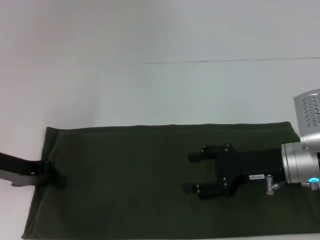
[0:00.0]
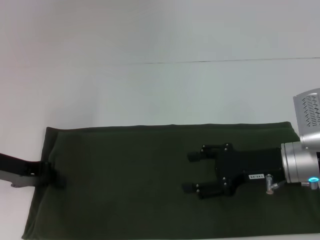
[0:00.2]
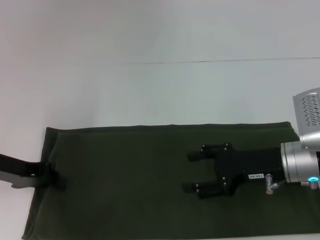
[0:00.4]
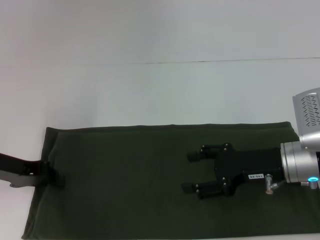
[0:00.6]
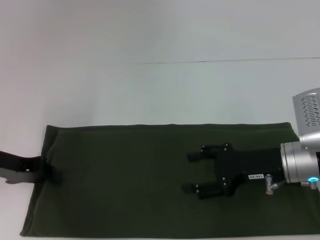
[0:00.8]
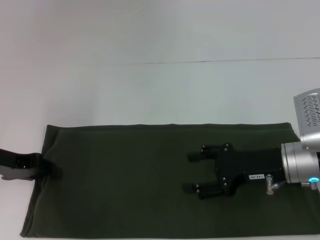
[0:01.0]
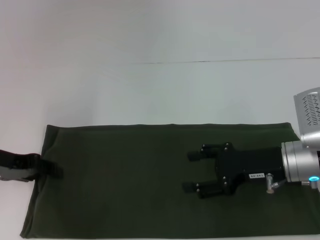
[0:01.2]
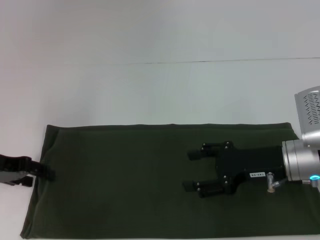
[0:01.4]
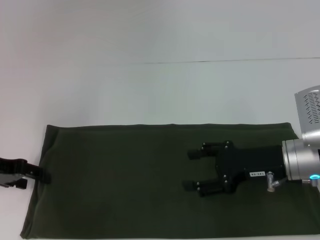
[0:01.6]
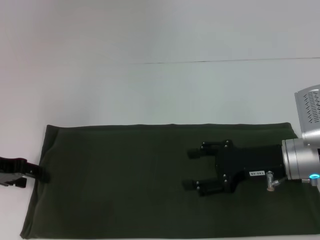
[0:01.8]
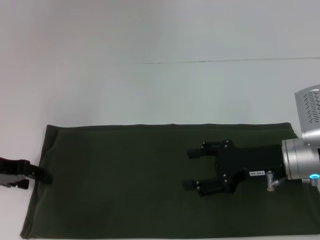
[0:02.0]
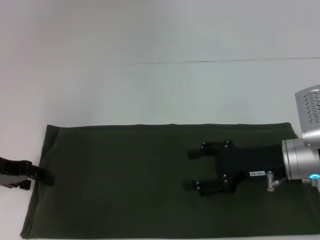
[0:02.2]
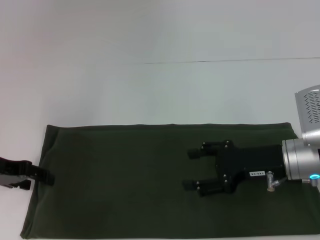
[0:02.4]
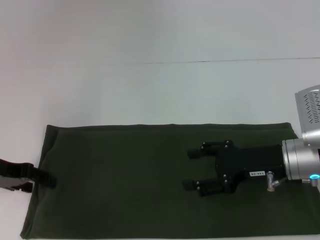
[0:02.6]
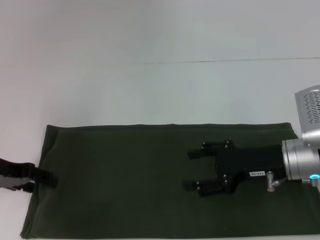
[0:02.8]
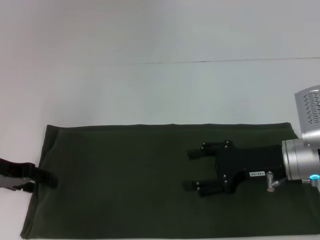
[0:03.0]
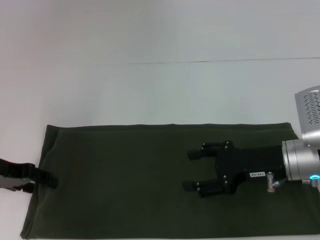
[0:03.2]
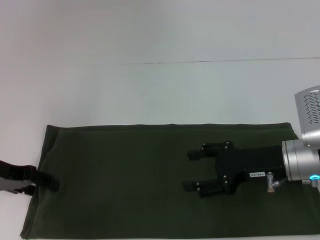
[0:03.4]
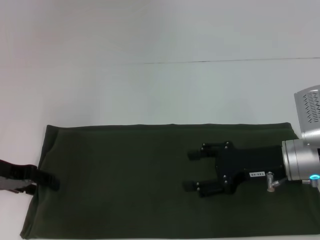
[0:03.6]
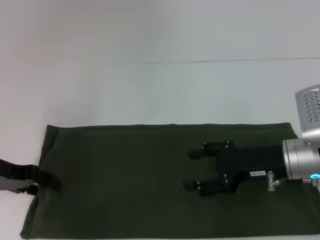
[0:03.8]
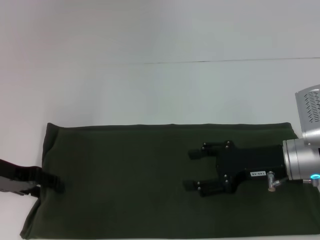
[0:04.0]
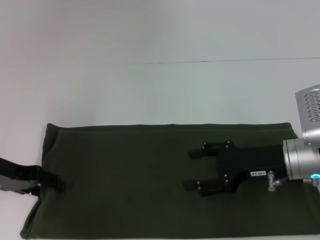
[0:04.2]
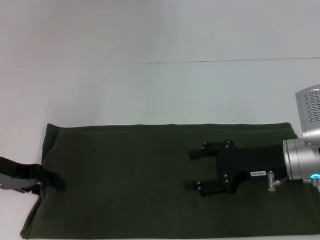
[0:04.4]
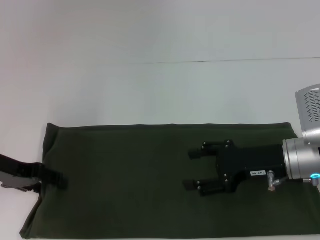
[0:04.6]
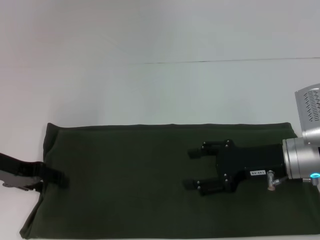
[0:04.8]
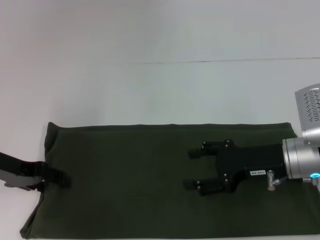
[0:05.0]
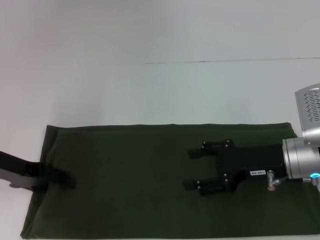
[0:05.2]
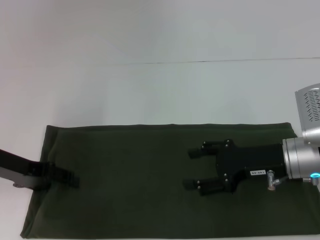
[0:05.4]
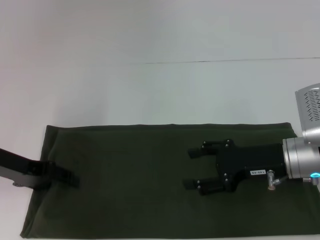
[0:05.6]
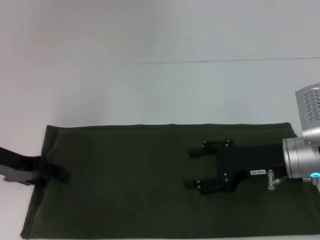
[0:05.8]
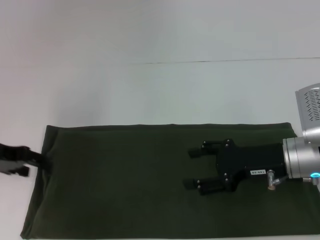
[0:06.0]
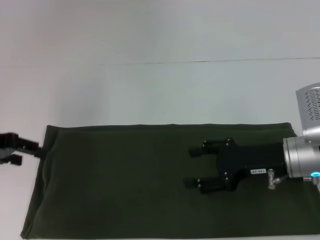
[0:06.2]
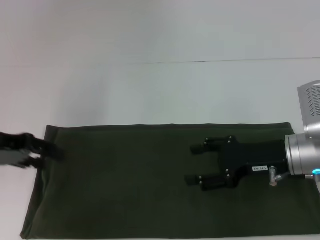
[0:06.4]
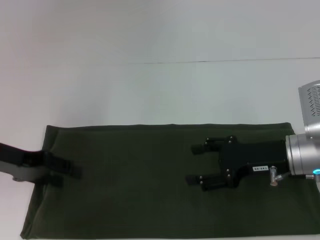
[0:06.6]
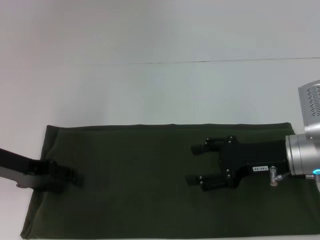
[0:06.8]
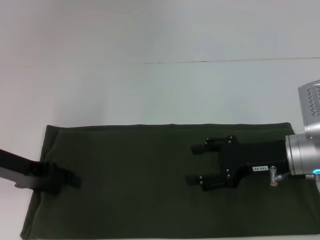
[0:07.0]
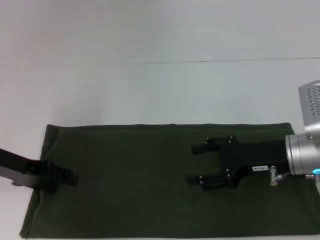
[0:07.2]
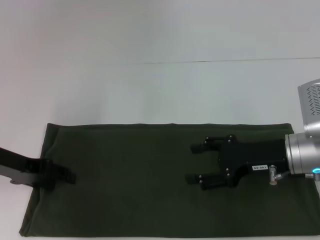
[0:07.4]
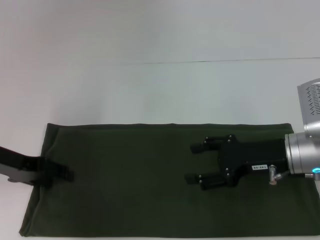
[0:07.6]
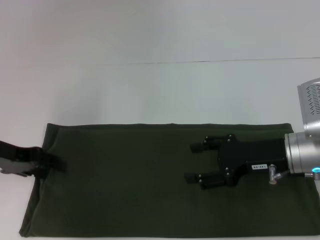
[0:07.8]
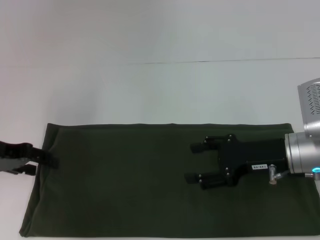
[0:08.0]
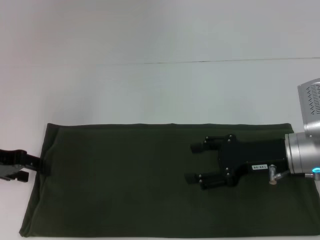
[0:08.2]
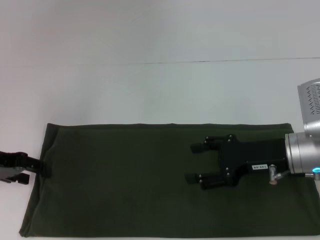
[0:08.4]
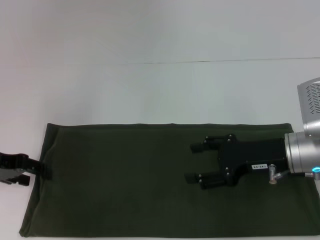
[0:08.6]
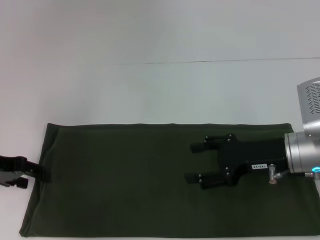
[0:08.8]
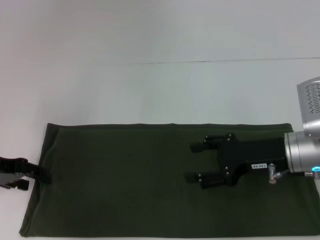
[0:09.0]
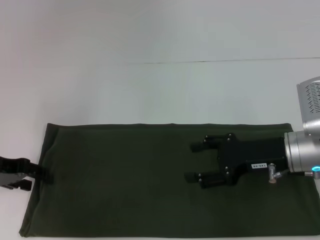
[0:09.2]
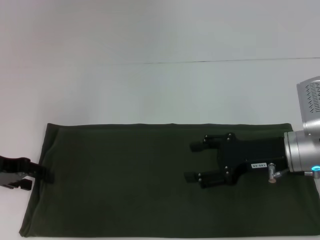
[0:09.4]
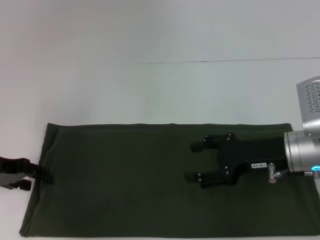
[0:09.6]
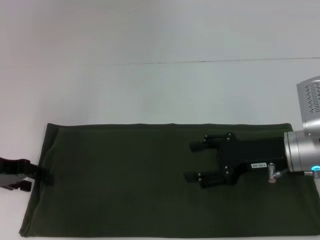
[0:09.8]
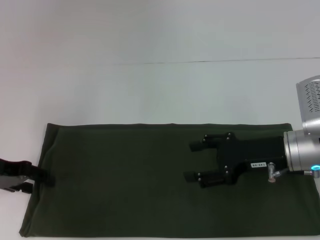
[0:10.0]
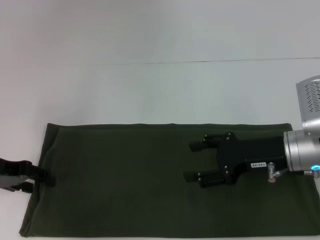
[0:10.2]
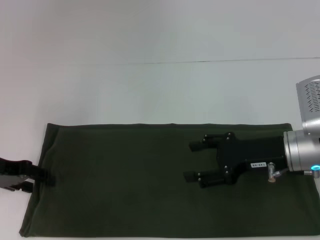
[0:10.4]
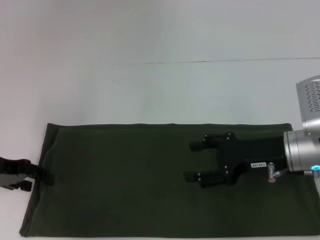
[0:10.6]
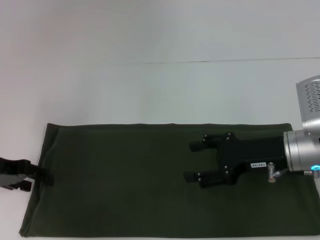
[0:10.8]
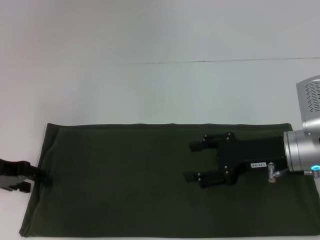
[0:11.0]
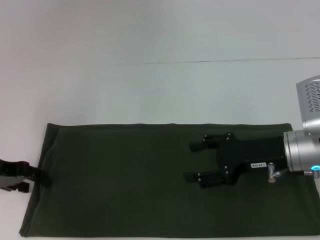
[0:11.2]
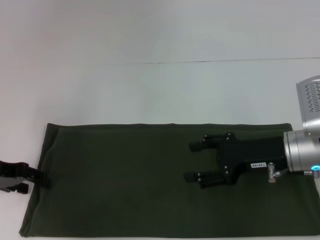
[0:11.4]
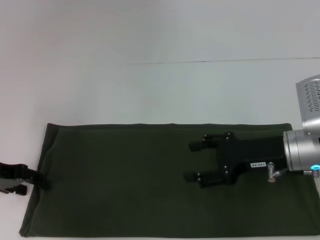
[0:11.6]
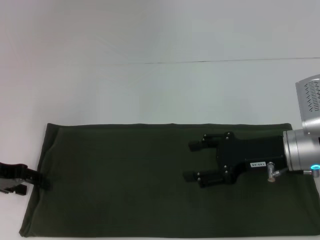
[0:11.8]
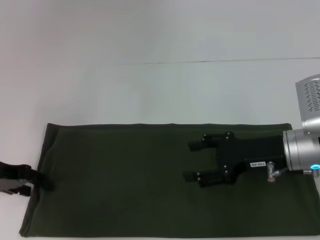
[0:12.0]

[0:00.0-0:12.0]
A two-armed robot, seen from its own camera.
0:00.0 to 0:01.6: The left gripper opens.
0:01.6 to 0:03.0: The two grippers keep their place.
0:03.0 to 0:04.4: Both grippers stay put.
0:04.4 to 0:09.0: The grippers move only a little.
0:09.0 to 0:12.0: Both grippers stay about where they are.

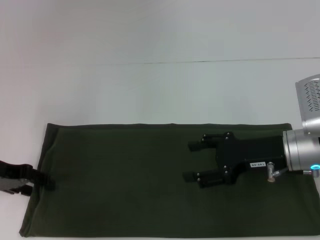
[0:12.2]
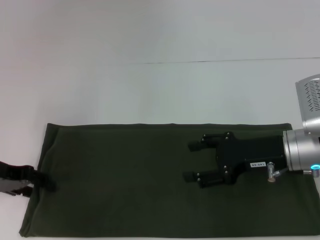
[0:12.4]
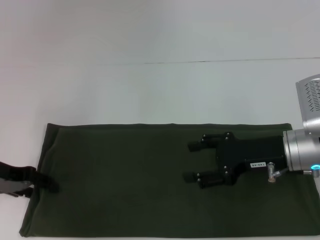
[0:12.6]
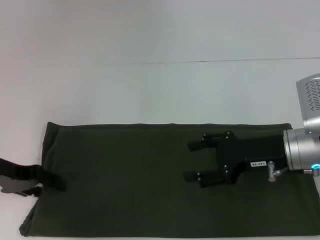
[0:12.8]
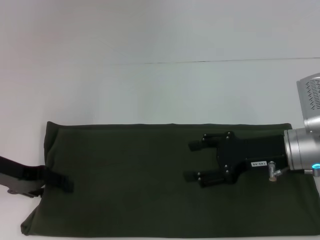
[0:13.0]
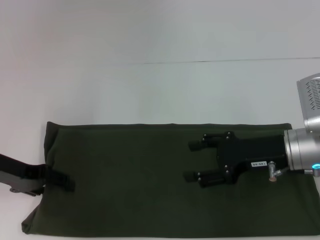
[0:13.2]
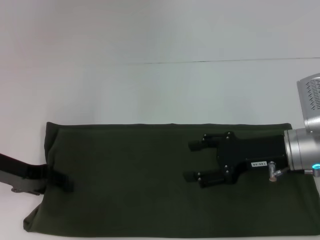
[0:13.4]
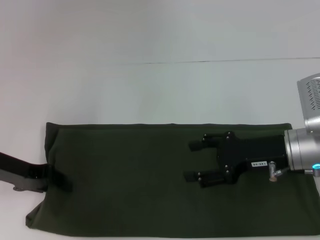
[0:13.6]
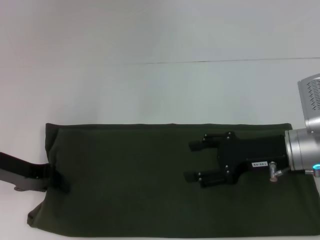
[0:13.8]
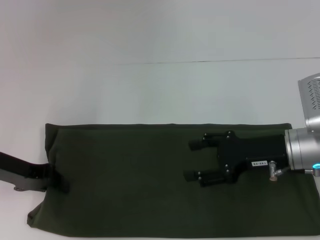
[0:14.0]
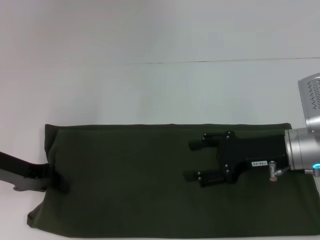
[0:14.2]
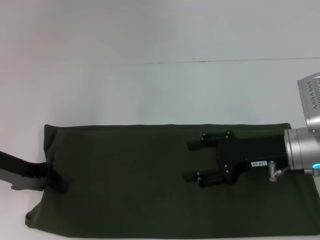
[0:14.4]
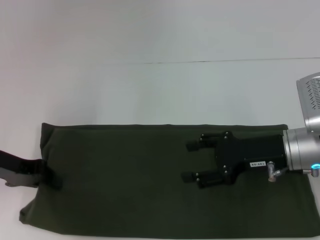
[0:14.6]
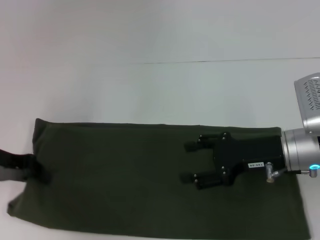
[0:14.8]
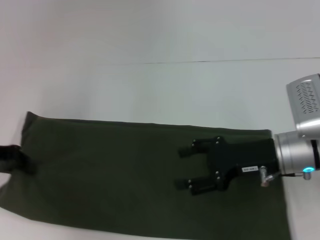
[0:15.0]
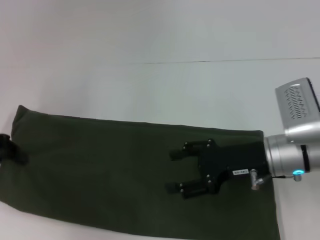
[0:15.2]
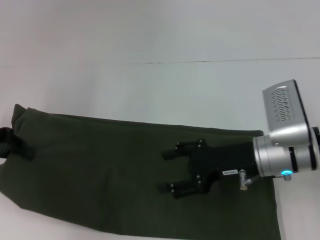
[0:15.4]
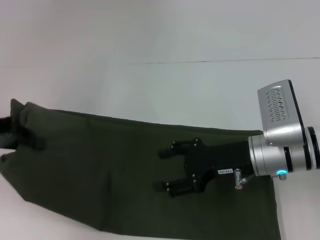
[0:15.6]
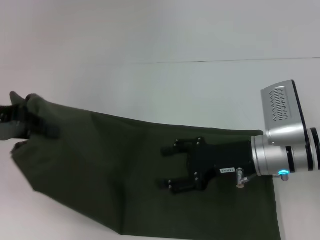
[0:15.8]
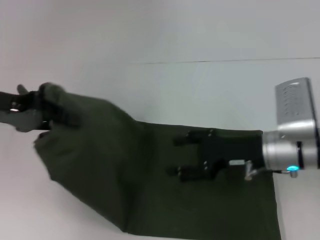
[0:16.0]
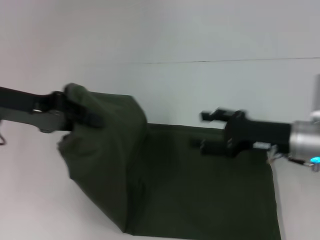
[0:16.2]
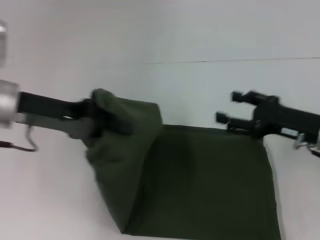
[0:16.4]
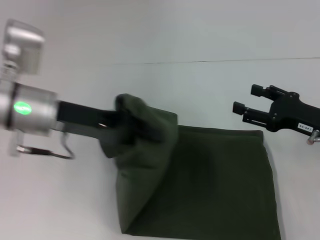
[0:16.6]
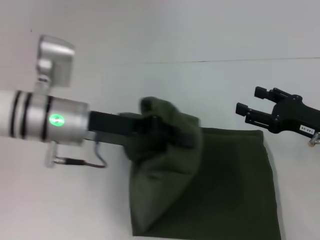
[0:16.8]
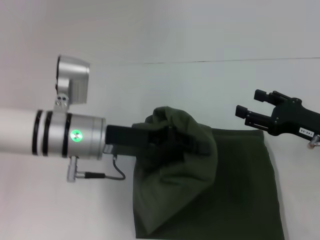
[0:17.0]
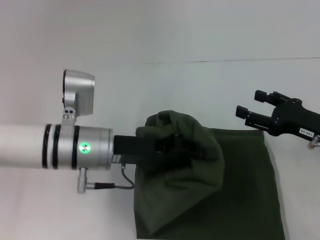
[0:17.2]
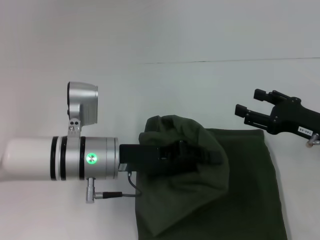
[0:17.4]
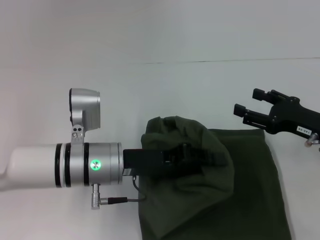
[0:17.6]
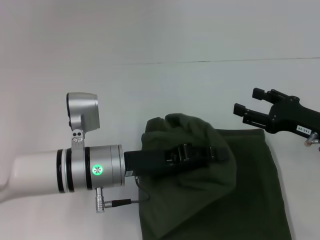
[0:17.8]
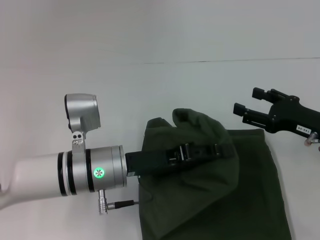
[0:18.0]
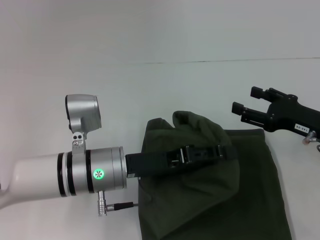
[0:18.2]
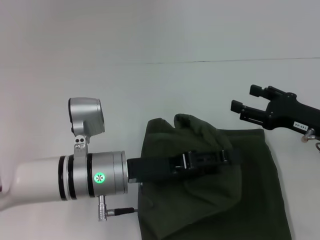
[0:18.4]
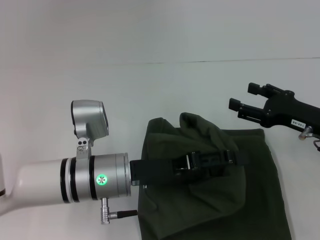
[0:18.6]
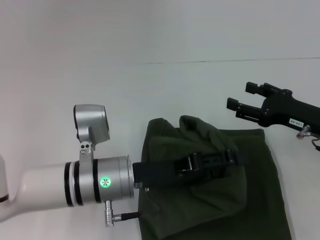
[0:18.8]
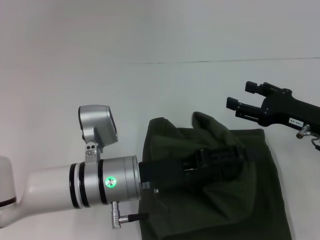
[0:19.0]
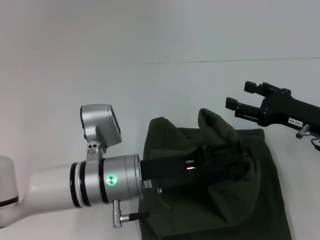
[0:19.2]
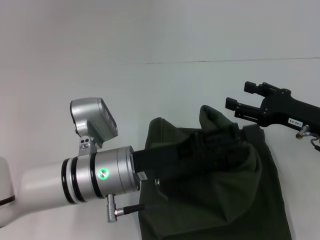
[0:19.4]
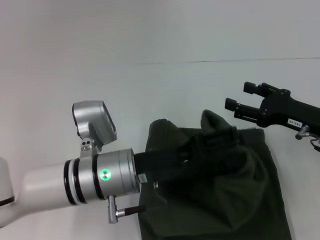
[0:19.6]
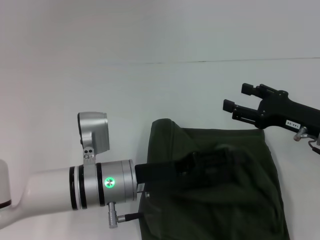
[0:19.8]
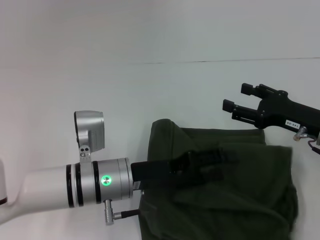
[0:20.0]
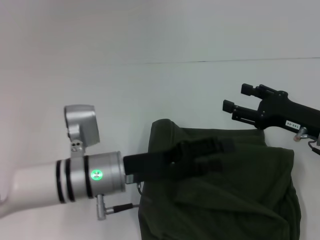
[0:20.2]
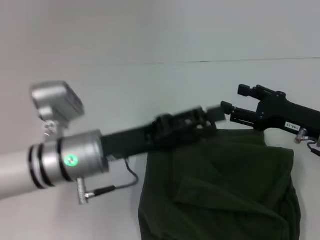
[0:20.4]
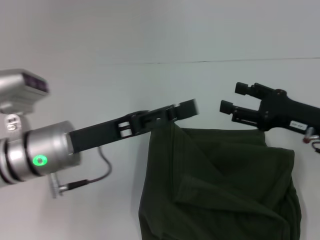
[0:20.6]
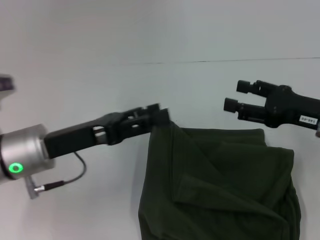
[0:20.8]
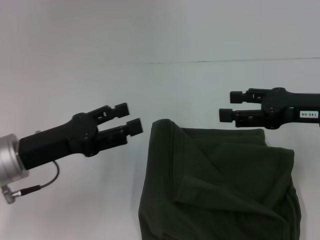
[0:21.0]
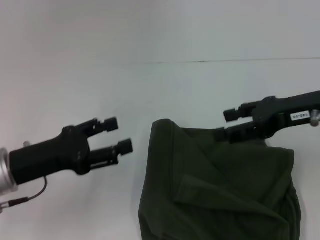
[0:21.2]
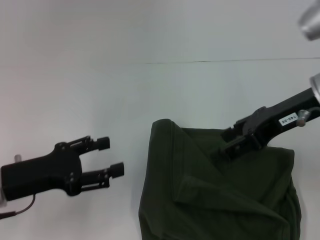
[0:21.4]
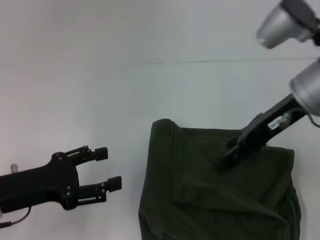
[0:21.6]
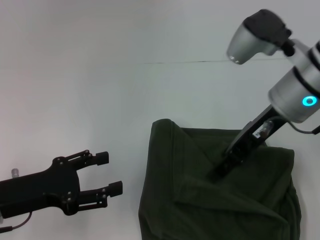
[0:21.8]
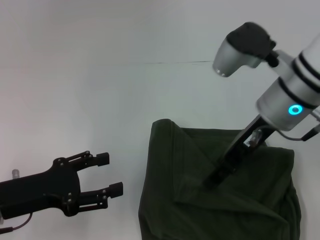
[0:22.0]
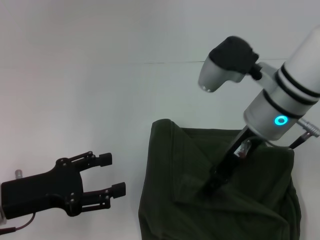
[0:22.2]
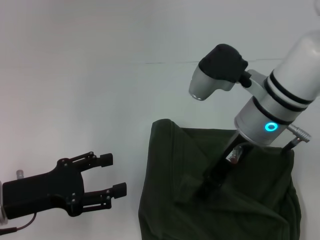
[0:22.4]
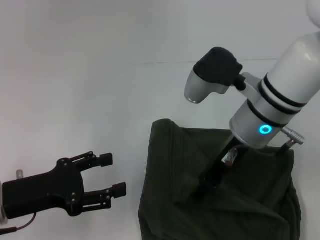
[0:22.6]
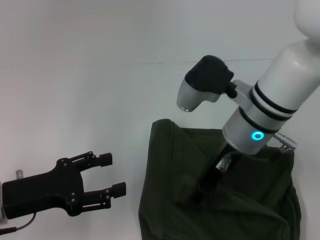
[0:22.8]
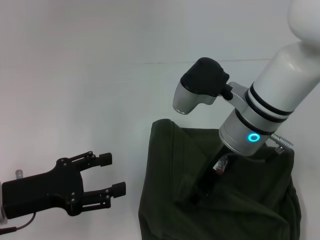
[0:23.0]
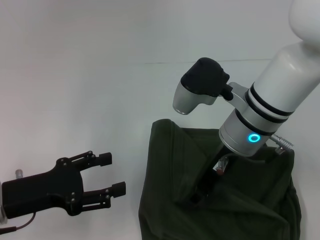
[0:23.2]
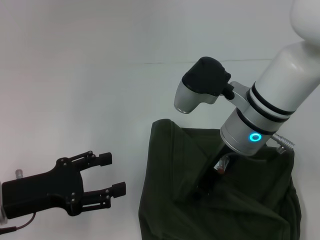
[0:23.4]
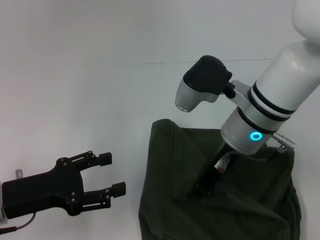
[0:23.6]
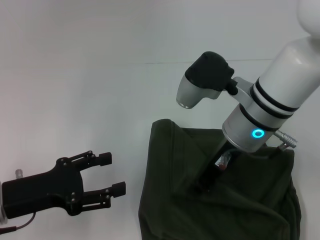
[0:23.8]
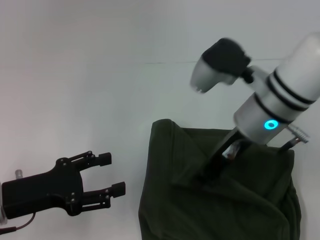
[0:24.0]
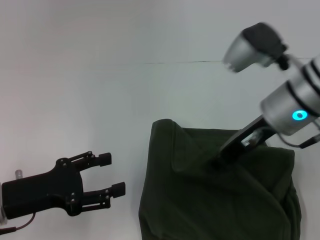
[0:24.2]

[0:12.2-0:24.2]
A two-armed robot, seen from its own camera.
Step, 0:12.2 to 0:20.0: Fold the clothes with your left hand.
0:12.2 to 0:13.8: The left gripper closes up.
0:13.8 to 0:15.2: The left gripper shifts approximately 10 cm to the left and upward.
0:15.2 to 0:16.6: The right gripper shifts roughly 10 cm to the right, while the left gripper is displaced to the right by approximately 15 cm.
0:16.6 to 0:18.2: The left gripper shifts approximately 10 cm downward and to the right.
0:18.2 to 0:19.8: The left gripper opens its fingers.
0:19.8 to 0:21.2: The right gripper is displaced upward by approximately 10 cm. Meanwhile the left gripper moves to the left, about 15 cm.
0:21.2 to 0:22.6: The right gripper is displaced to the left by about 15 cm.
0:22.6 to 0:24.2: The right gripper ends up about 5 cm from where it was, and closes up.
